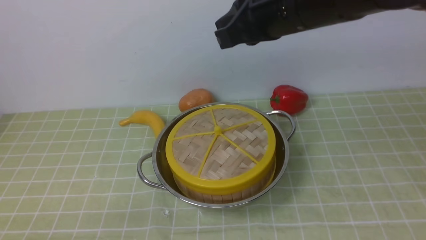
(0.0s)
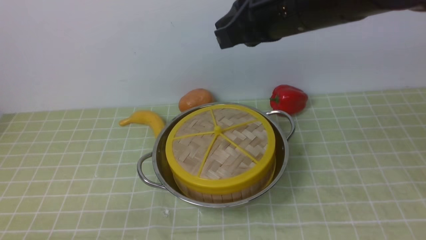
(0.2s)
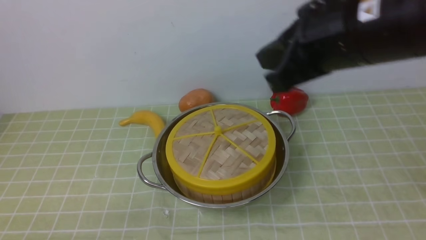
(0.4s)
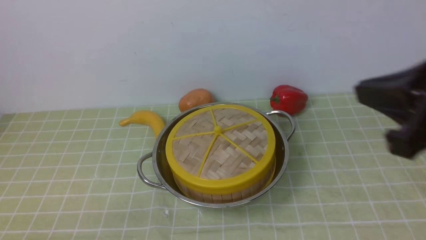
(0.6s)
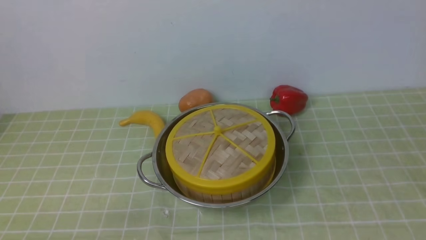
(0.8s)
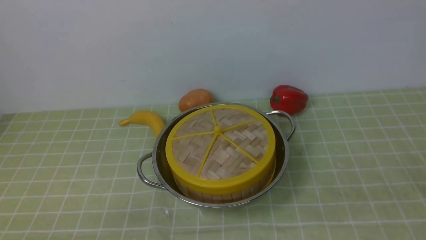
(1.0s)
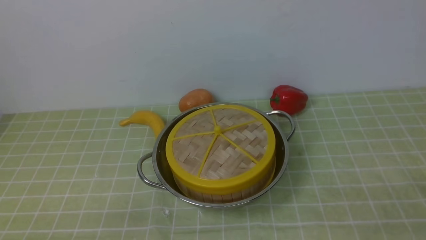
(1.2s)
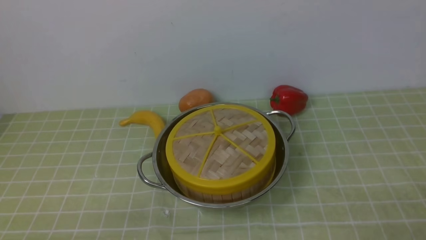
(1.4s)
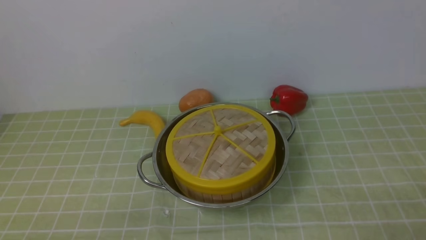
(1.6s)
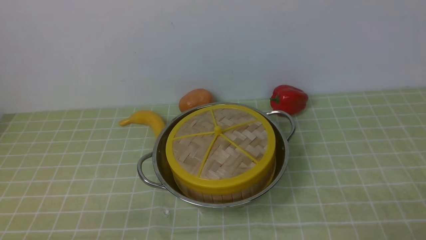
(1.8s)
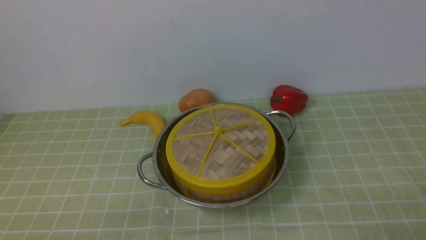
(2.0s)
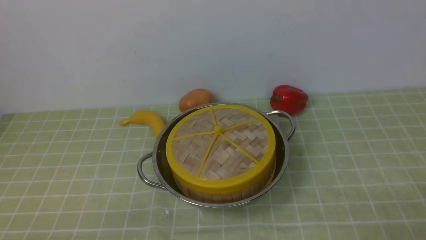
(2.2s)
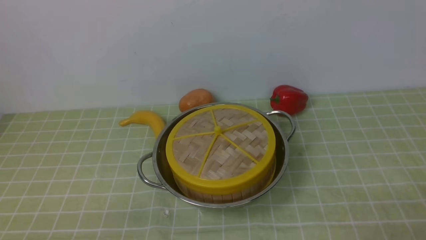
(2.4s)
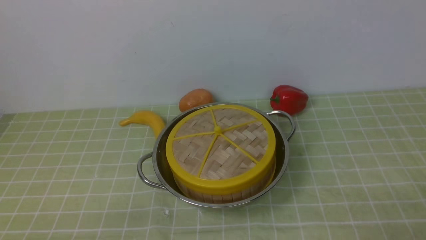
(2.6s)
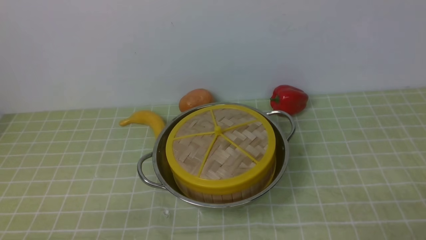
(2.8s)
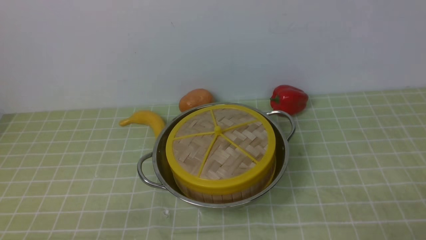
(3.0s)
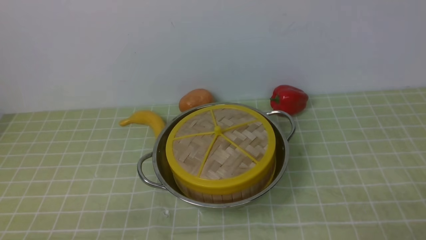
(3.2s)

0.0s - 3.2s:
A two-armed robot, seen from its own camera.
Task of the whole recording: place the steamer in the pot on the green tablecloth, and put the lid on the steamer.
0.0s - 1.6s: The right gripper is displaced backward, to the right and downward by some 40 cm.
1.6s - 3.2s: Both grippers stay put.
